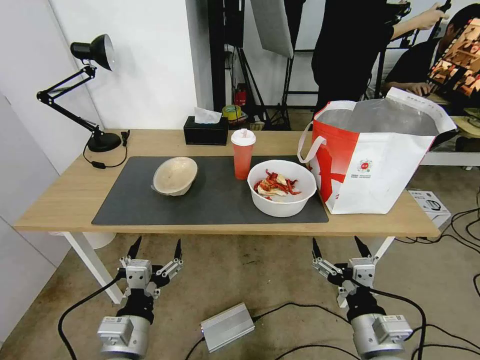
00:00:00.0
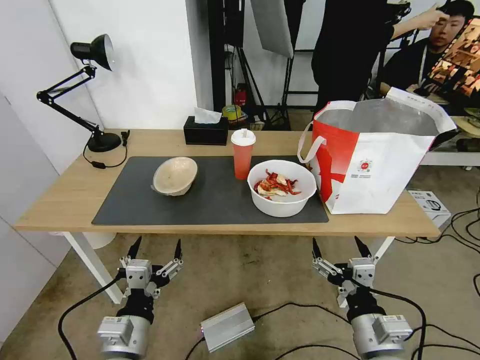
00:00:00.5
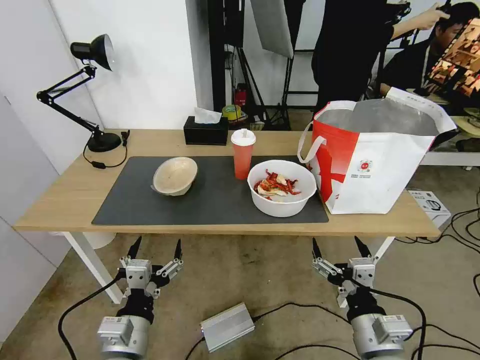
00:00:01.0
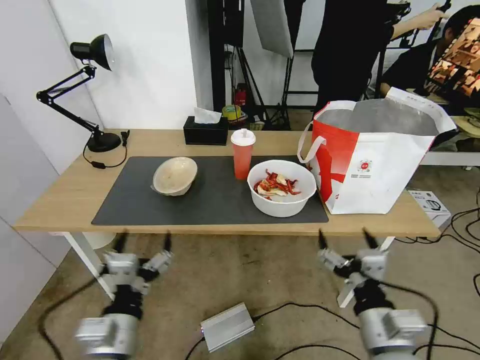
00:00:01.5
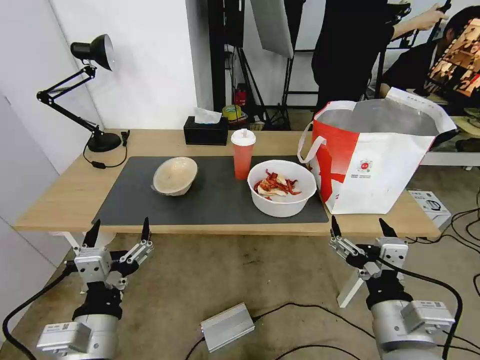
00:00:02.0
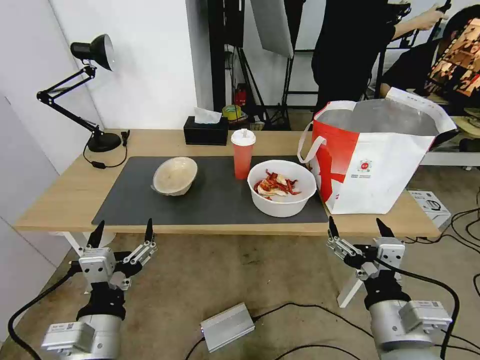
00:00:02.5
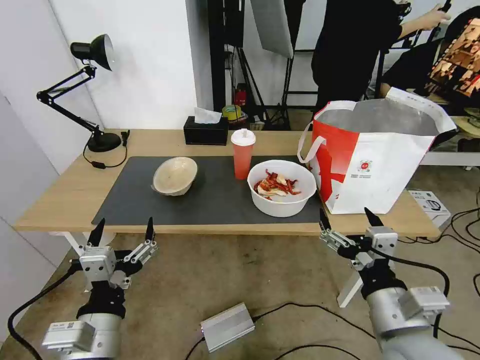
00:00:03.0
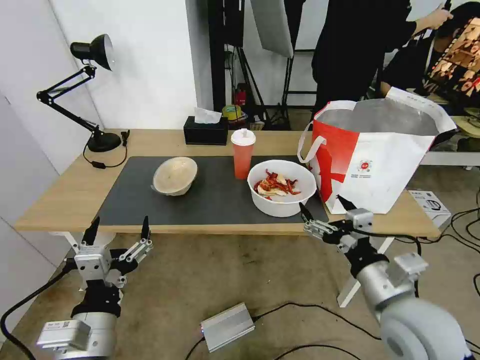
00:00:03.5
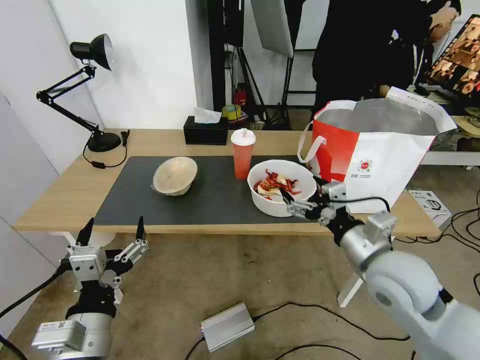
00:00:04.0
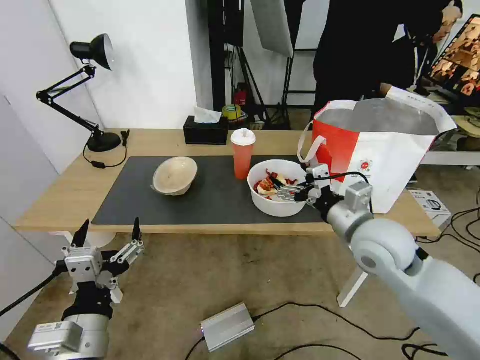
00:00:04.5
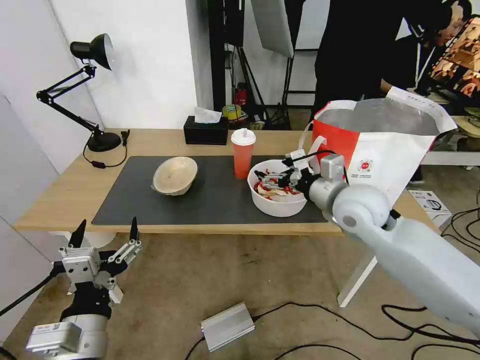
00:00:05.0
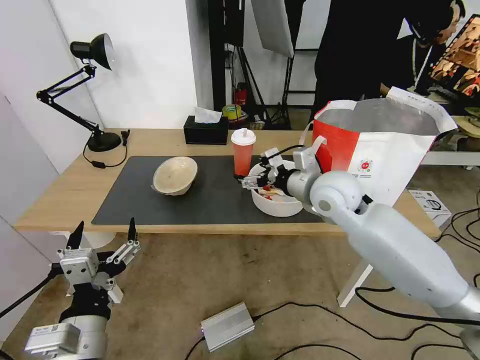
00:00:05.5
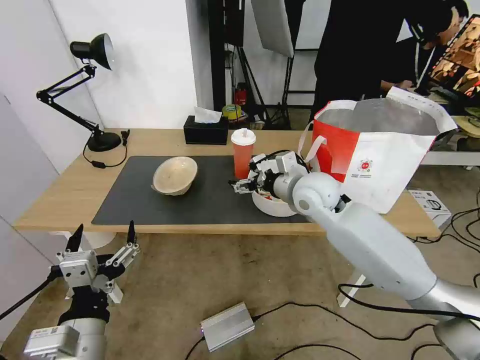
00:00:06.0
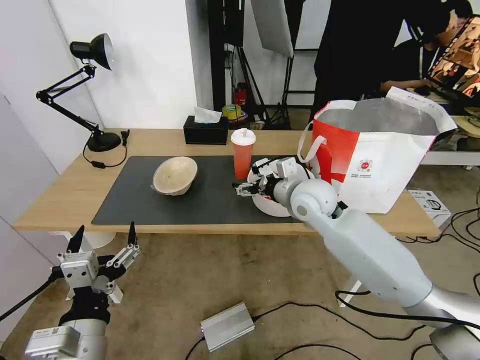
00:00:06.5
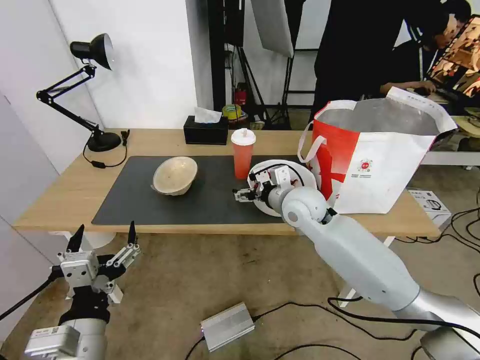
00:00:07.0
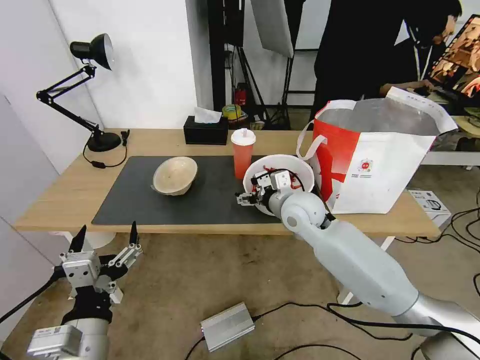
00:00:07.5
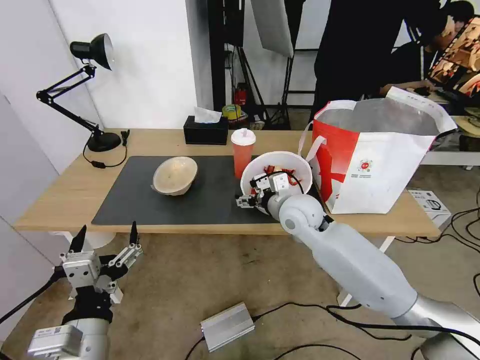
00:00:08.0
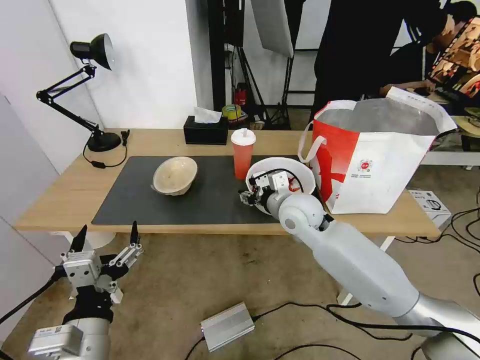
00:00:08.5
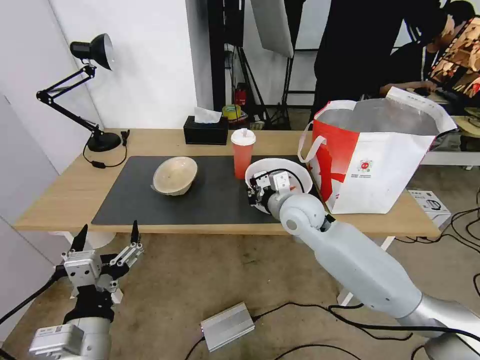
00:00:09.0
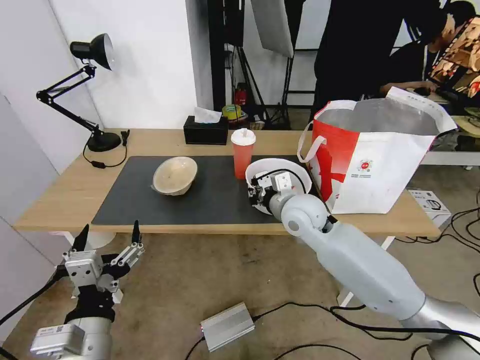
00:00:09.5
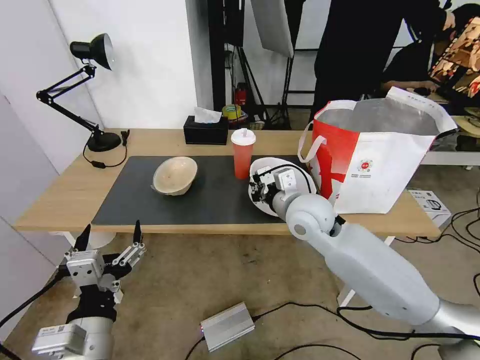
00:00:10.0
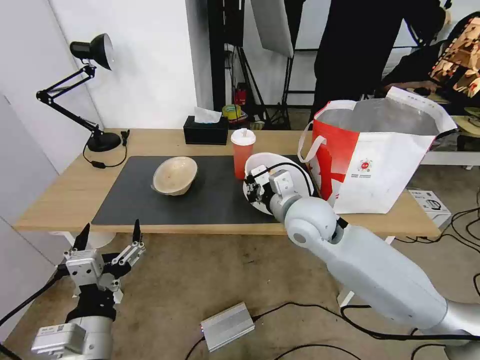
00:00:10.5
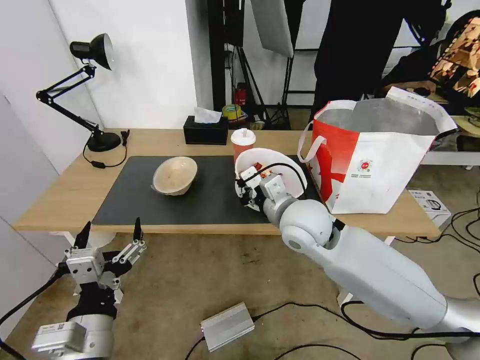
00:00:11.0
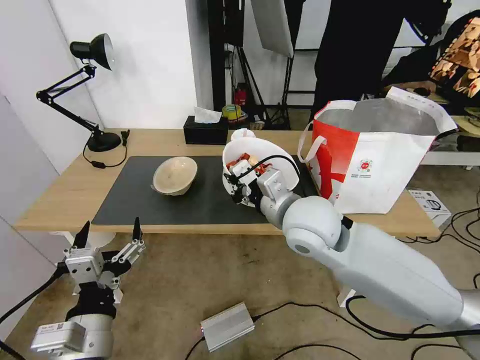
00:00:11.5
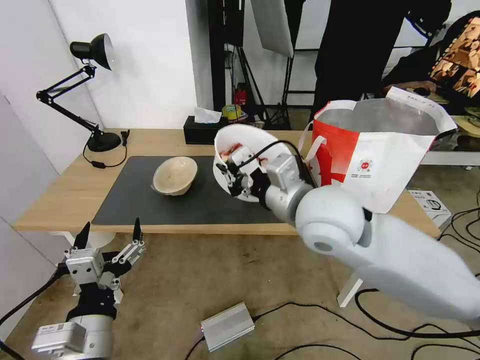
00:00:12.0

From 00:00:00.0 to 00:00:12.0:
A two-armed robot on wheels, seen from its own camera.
Task of the whole recording: Pick up the trash from the table and place it into the takeout bag.
From 00:00:02.0 to 00:00:04.0: The right gripper is displaced forward by roughly 15 cm.
From 00:00:04.0 to 00:00:06.0: The right gripper shifts approximately 20 cm forward and to the left.
From 00:00:06.0 to 00:00:08.0: The right gripper is displaced downward by approximately 5 cm.
From 00:00:08.0 to 00:00:10.0: The right gripper changes place by about 5 cm, and closes its fingers.
From 00:00:10.0 to 00:00:12.0: The right gripper is displaced upward and backward by approximately 15 cm.

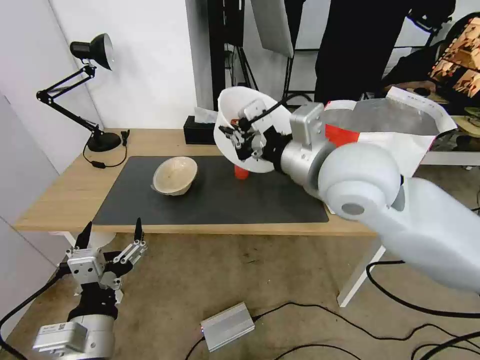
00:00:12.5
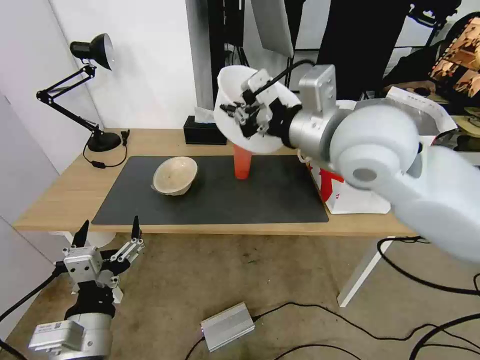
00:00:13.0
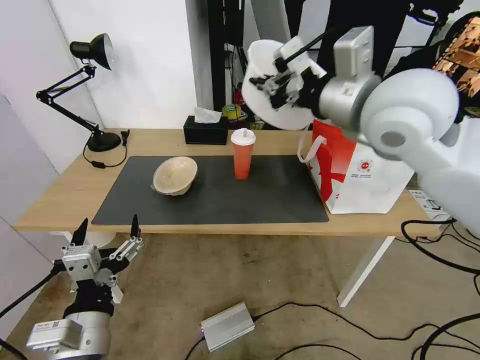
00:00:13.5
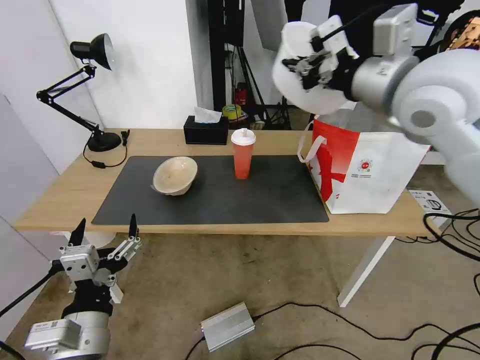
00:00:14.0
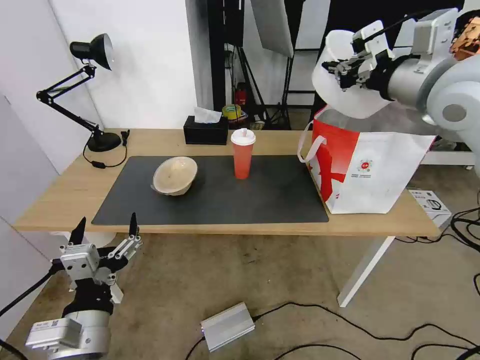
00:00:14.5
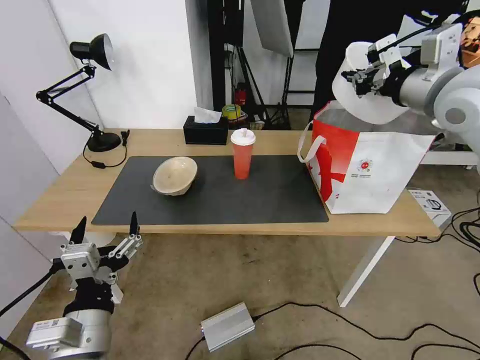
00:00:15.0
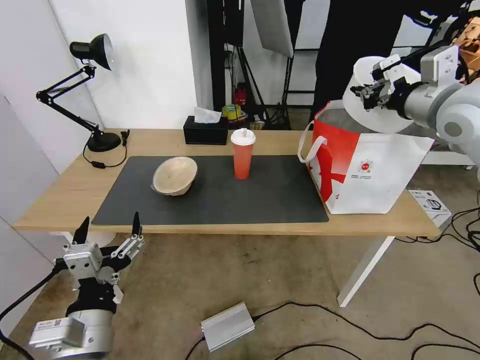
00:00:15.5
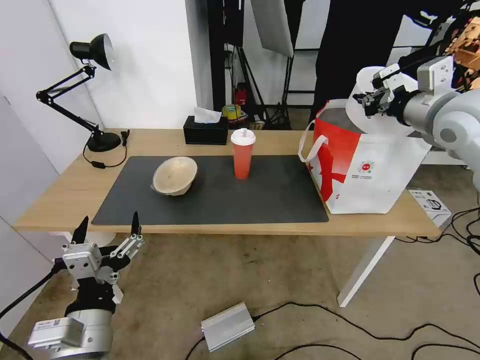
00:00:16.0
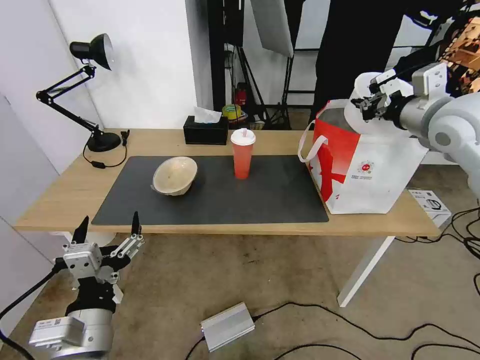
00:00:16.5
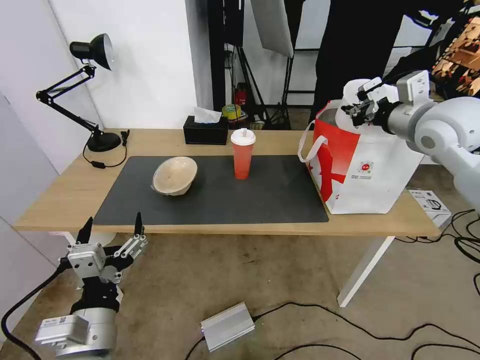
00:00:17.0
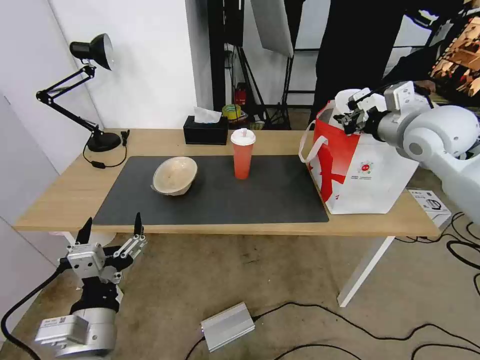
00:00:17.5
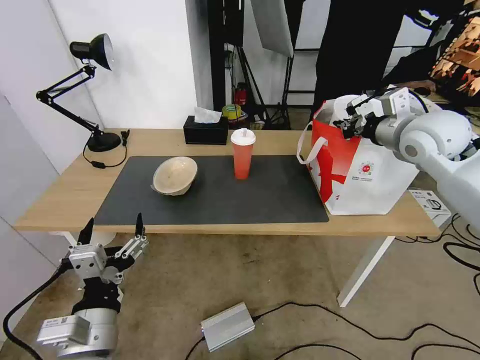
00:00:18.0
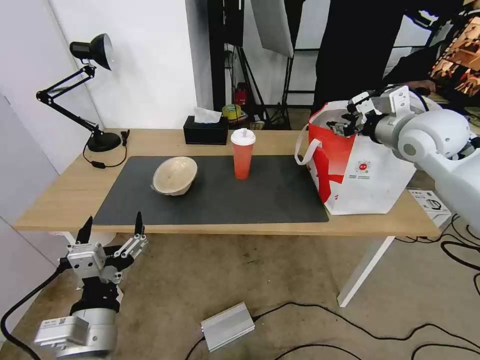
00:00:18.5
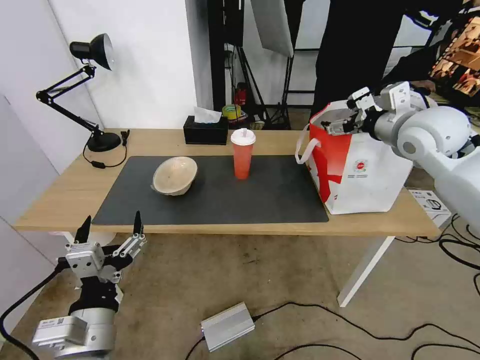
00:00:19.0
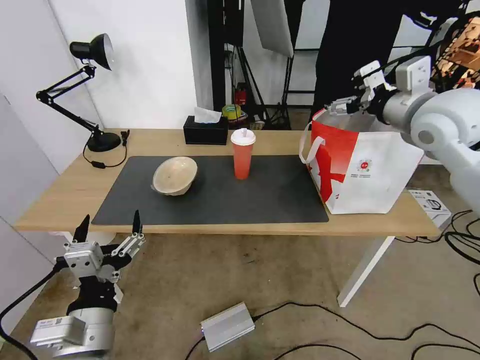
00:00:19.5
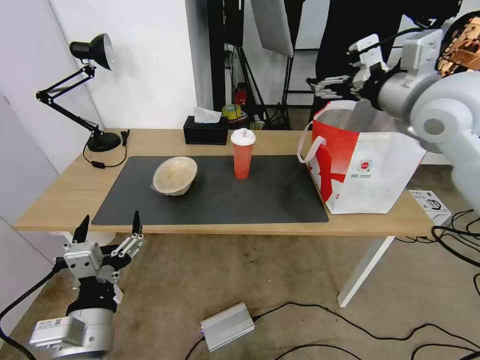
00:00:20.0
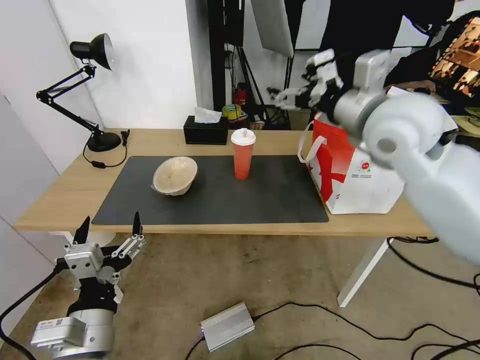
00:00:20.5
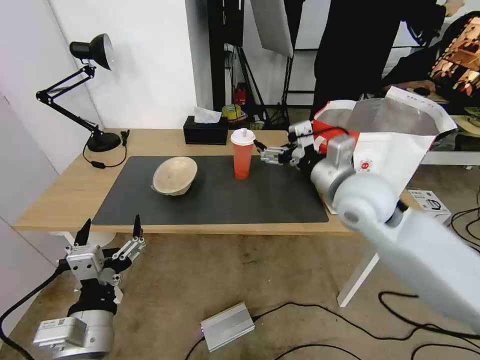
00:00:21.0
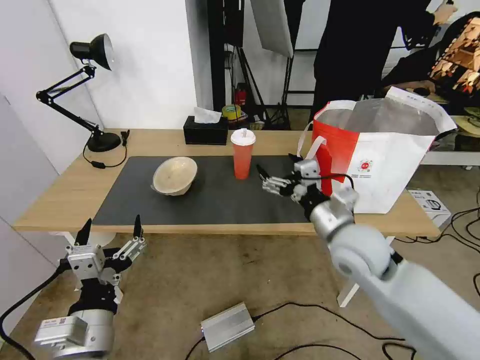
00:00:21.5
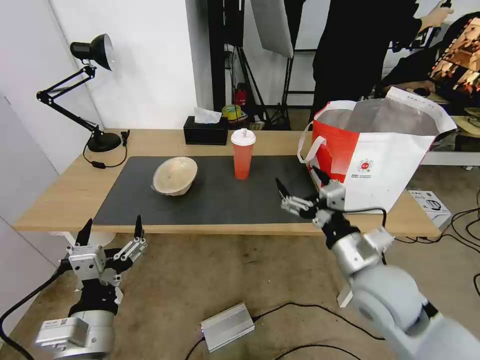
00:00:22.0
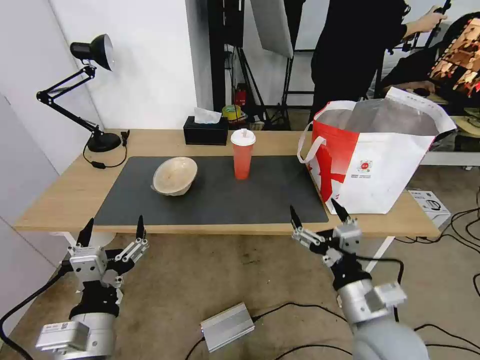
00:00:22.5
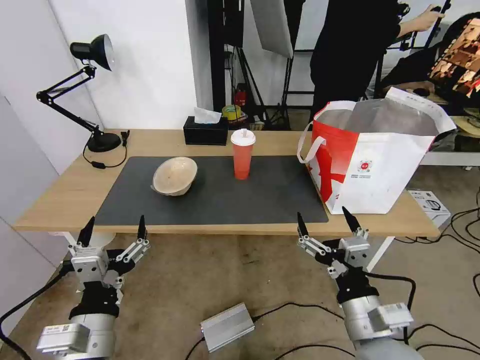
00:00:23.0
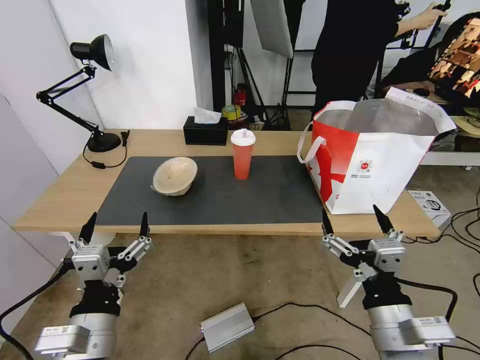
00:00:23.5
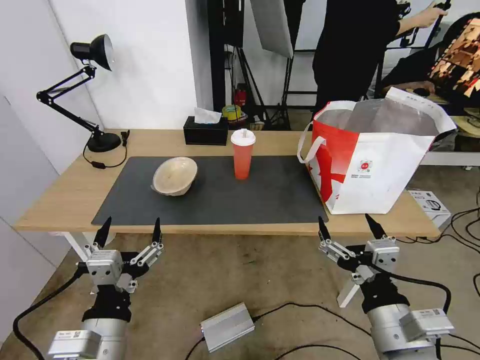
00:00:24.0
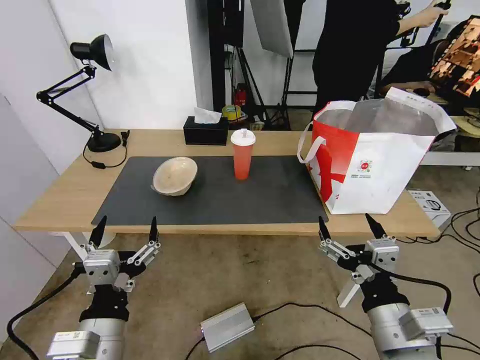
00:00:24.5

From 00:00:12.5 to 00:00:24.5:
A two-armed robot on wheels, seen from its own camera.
Task of the whole recording: Pick up the trash from the table and place it into the takeout bag.
From 00:00:12.5 to 00:00:14.5: The right gripper goes approximately 20 cm to the right, upward and forward.
From 00:00:14.5 to 00:00:16.5: The right gripper goes approximately 10 cm downward and to the right.
From 00:00:16.5 to 00:00:18.5: The right gripper ends up some 5 cm from where it was, and opens its fingers.
From 00:00:18.5 to 00:00:20.5: The right gripper goes about 15 cm to the left, backward and upward, and opens up.
From 00:00:20.5 to 00:00:22.5: The right gripper is displaced downward and backward by some 35 cm.
From 00:00:22.5 to 00:00:24.5: The right gripper is displaced backward by roughly 5 cm.

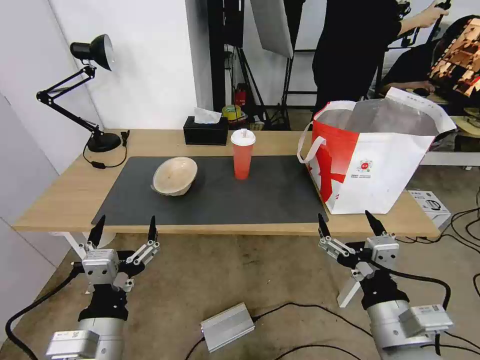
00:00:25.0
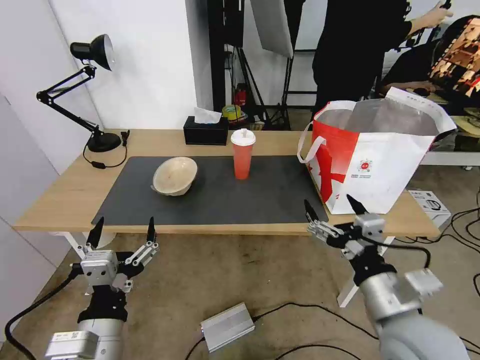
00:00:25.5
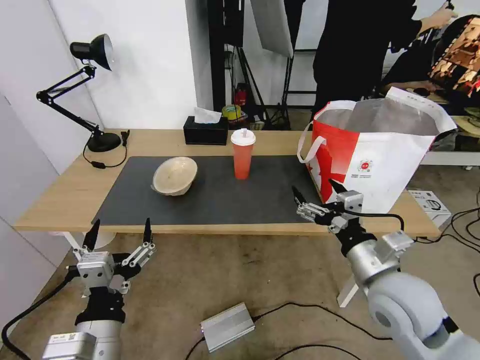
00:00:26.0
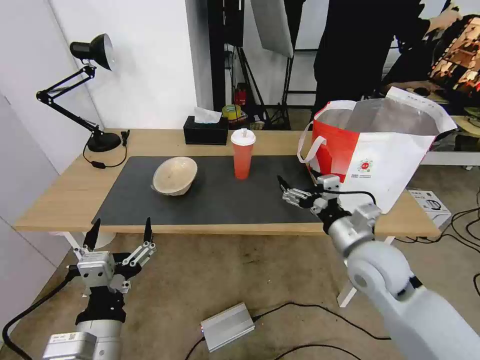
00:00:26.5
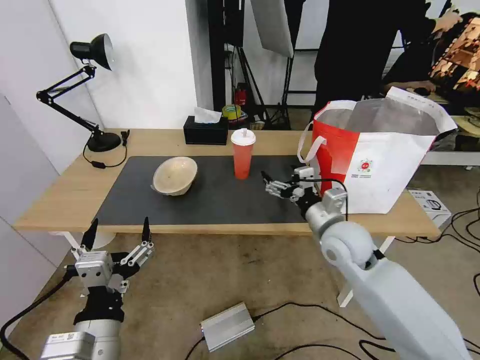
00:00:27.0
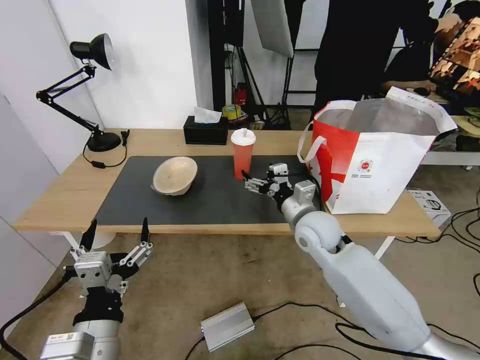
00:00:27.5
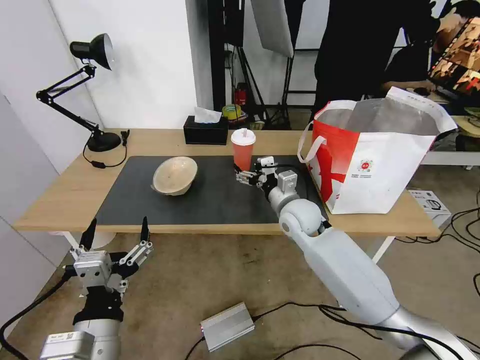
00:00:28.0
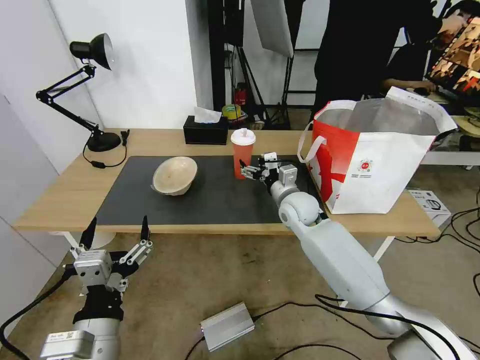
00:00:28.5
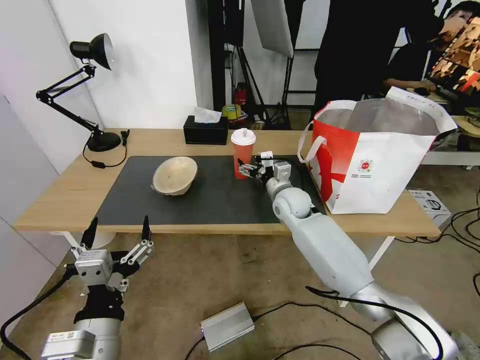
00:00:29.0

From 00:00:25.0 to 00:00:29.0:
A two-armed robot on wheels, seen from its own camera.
Task of the whole recording: Pick up the trash from the table and place it into the takeout bag.
From 00:00:25.0 to 00:00:27.0: The right gripper heads forward, covering about 25 cm.
From 00:00:27.0 to 00:00:29.0: The right gripper goes roughly 15 cm forward and to the left.
